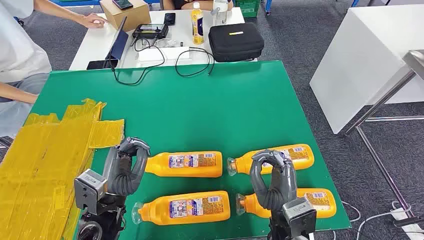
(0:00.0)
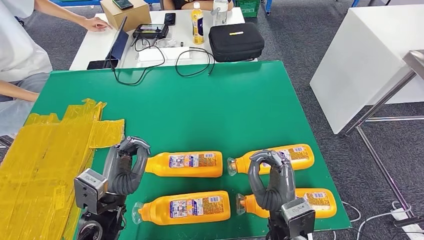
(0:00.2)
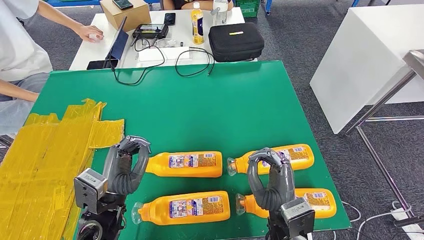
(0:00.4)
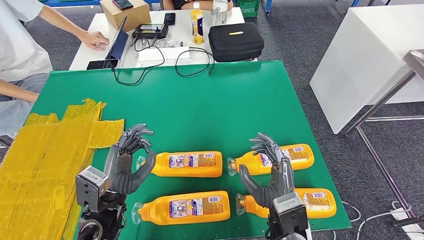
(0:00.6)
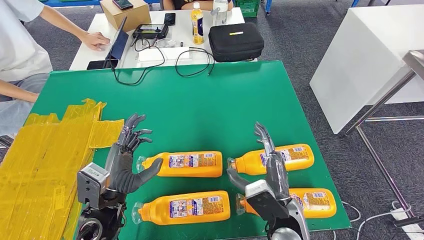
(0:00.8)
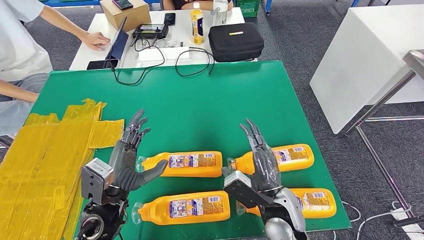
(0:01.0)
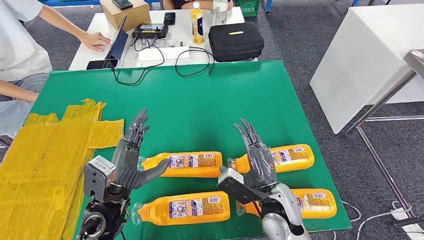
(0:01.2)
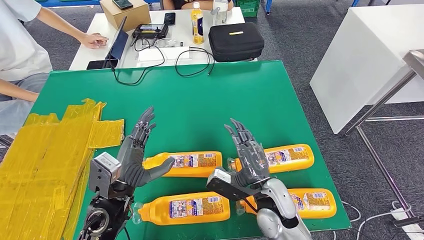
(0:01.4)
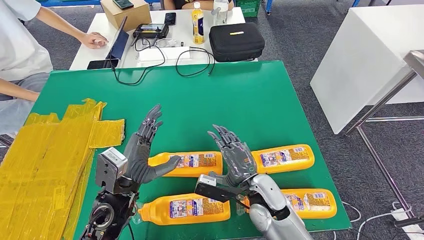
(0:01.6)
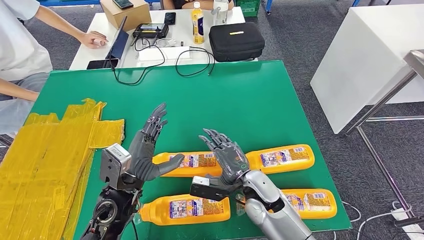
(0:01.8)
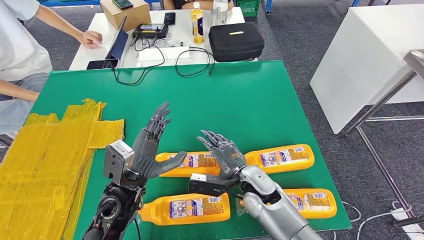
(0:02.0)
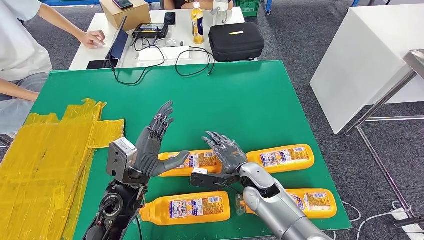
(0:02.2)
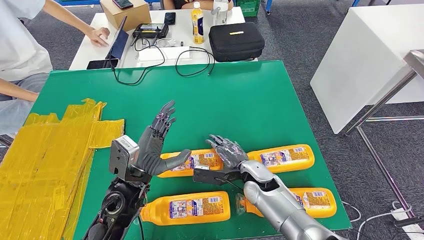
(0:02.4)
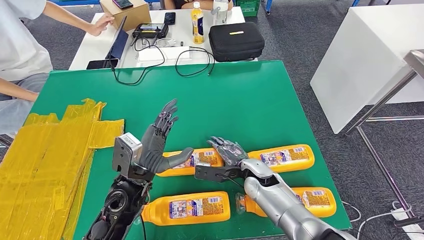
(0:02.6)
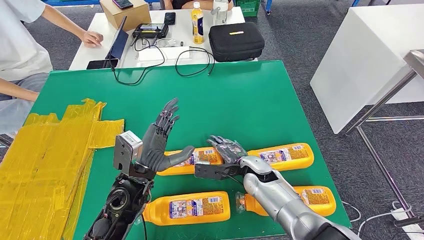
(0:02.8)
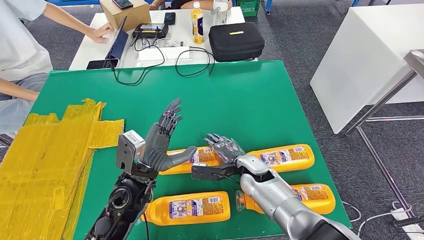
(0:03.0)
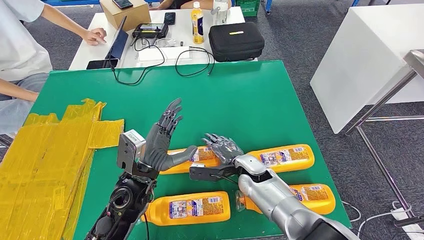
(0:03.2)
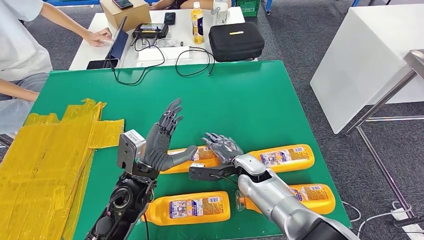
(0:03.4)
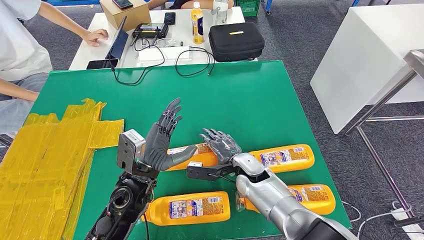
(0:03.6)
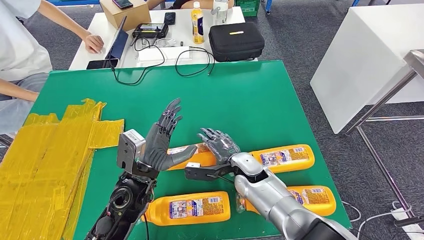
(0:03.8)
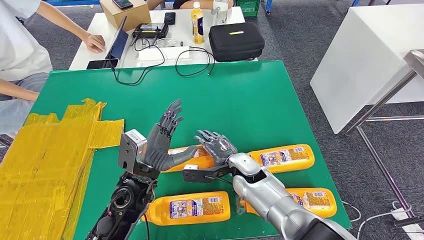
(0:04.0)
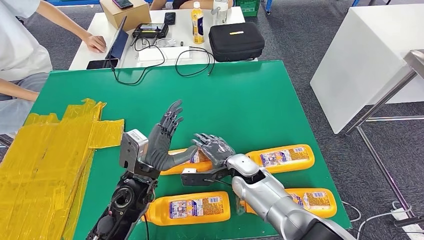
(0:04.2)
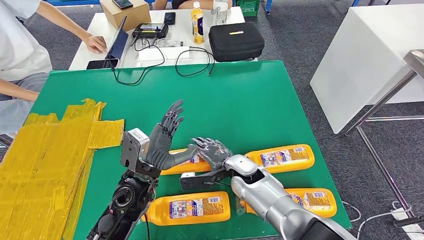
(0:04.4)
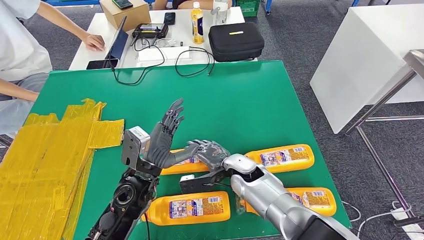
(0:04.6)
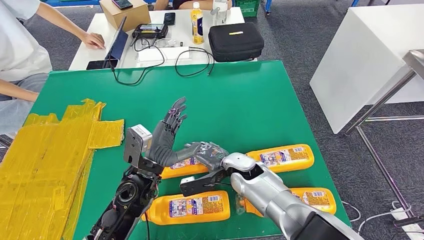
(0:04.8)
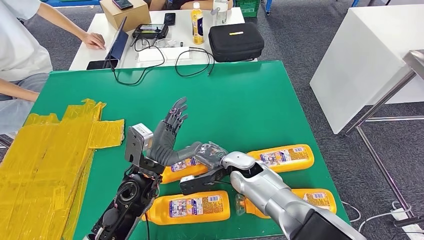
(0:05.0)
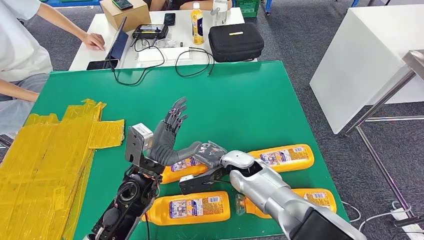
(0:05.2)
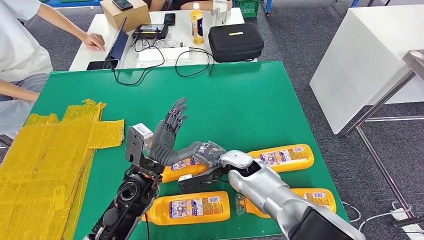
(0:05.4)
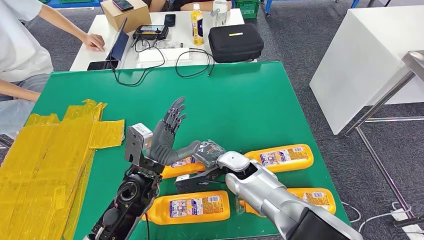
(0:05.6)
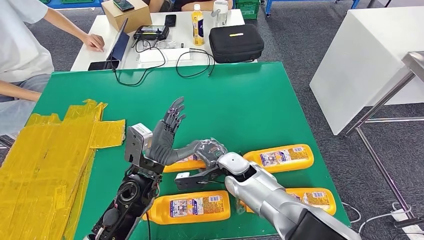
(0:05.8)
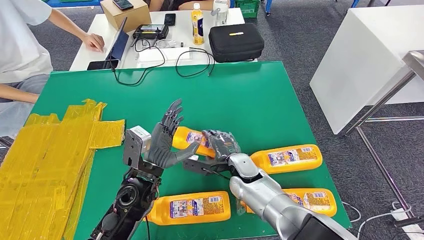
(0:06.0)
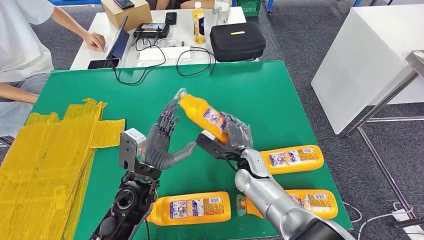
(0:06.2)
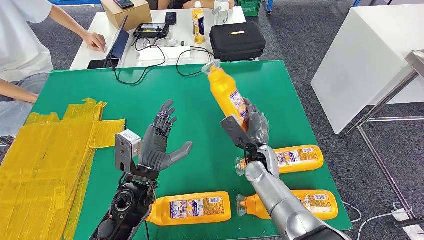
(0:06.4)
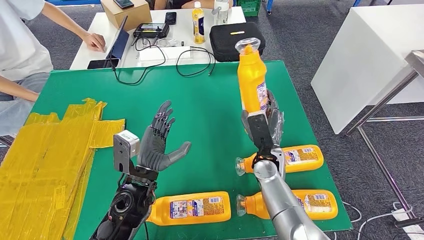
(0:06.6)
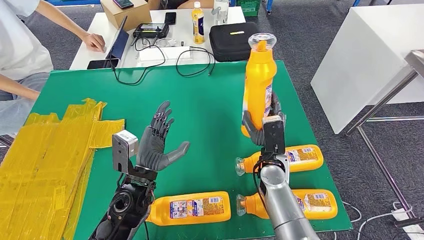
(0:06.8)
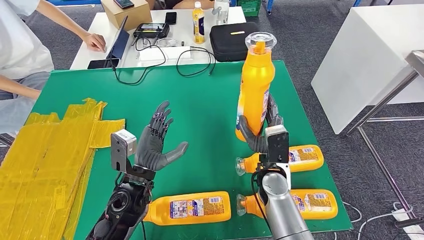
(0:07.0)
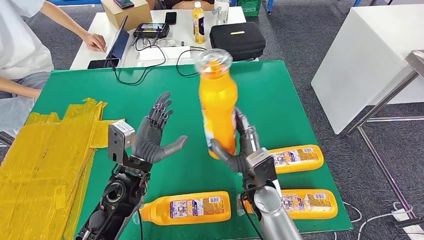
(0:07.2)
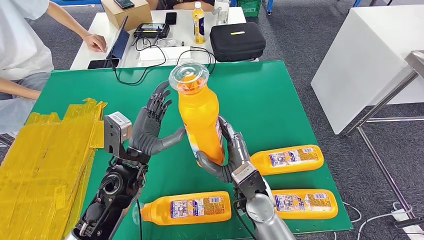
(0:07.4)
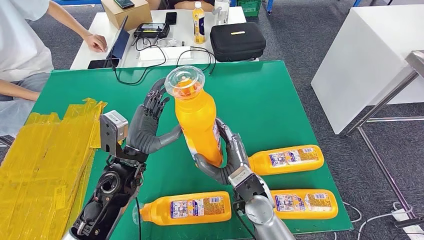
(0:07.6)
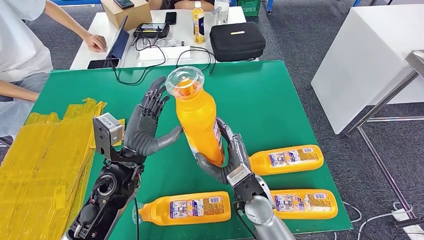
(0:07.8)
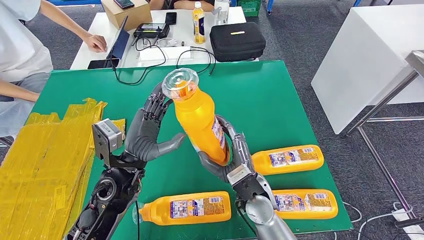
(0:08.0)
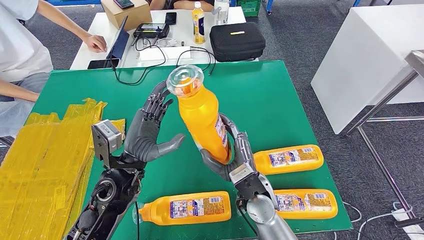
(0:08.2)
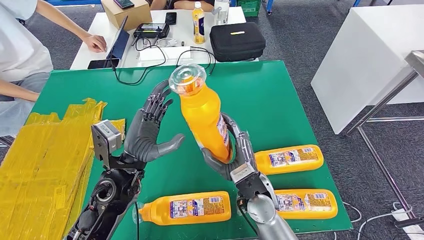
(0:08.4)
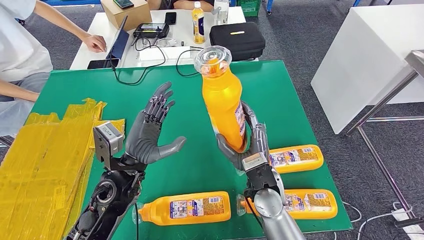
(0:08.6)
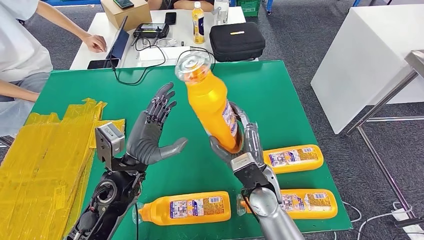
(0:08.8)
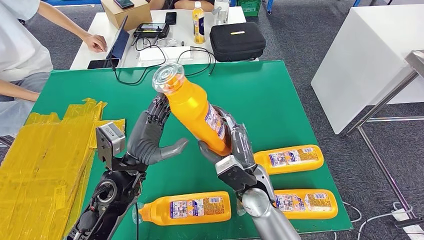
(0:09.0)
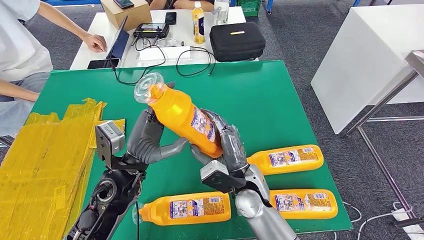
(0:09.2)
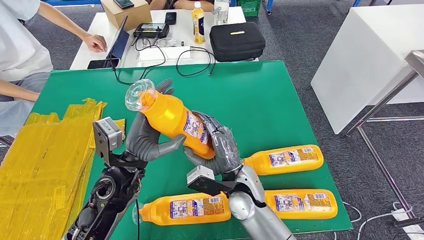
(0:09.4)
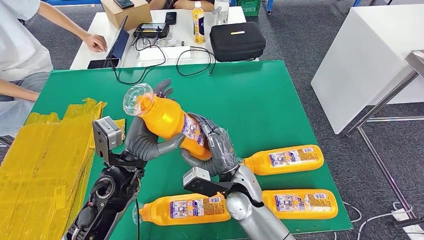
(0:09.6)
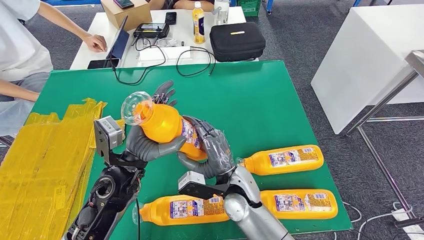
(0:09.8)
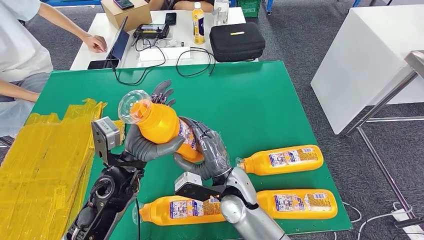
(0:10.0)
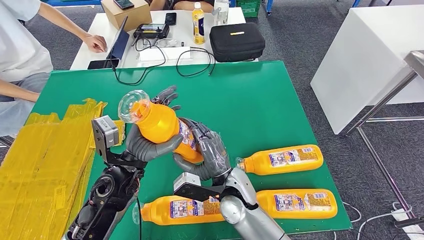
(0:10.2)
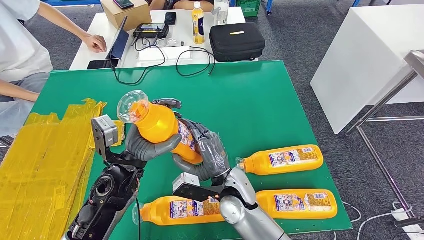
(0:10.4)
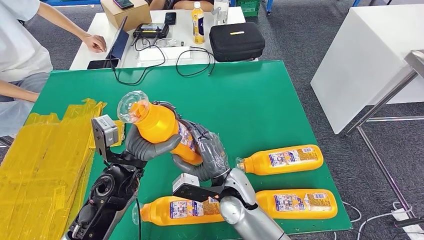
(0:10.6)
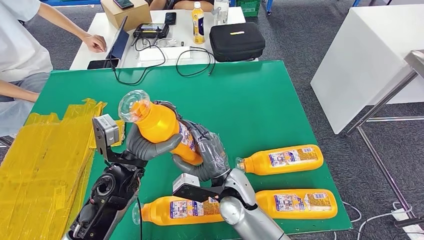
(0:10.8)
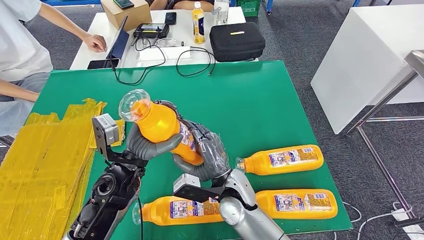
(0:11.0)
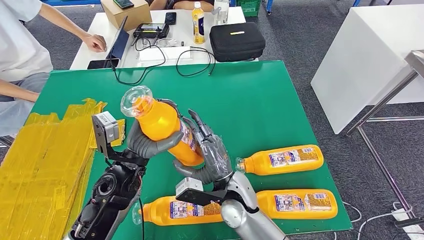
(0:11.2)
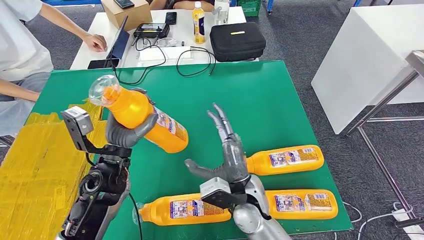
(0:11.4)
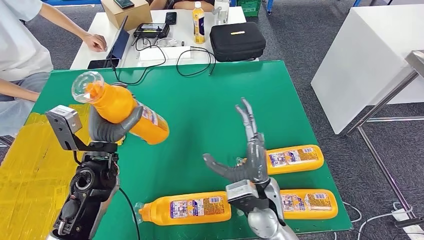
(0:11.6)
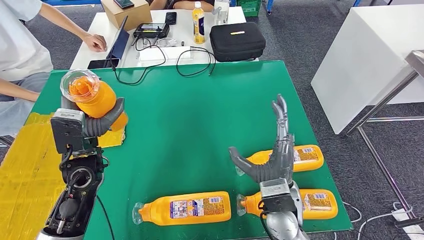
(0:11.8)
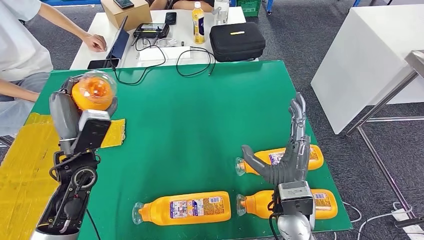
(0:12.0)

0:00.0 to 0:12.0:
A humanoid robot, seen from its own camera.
Step, 0:00.0 to 0:07.8: Take the bottle from the table.
0:01.6 to 0:03.0: The right hand shifts approximately 10 cm forward.
0:03.0 to 0:04.4: The hands move only a little.
0:07.6 to 0:09.0: The hands stay close to where they were, moving slightly.
0:09.0 to 0:10.4: The right hand moves to the left, some 5 cm.

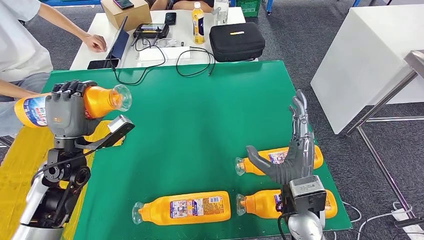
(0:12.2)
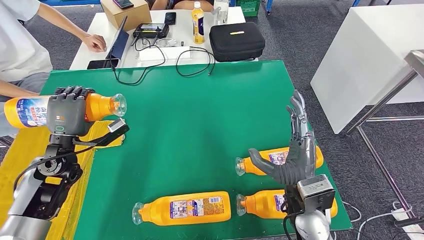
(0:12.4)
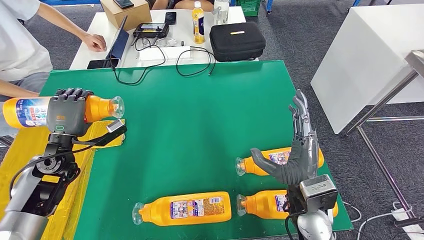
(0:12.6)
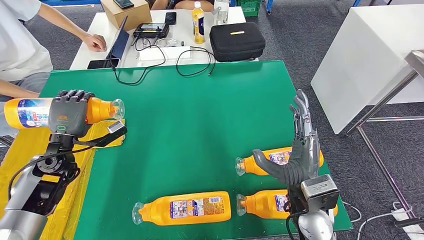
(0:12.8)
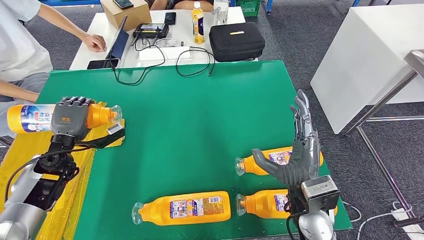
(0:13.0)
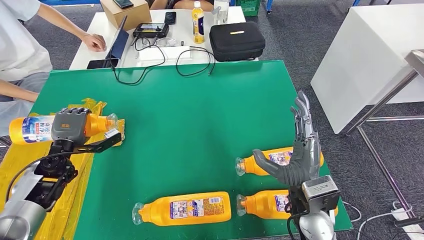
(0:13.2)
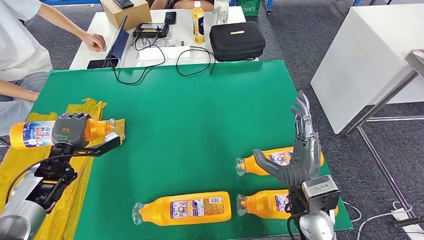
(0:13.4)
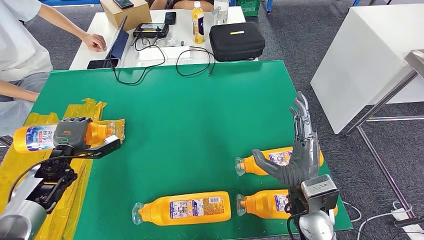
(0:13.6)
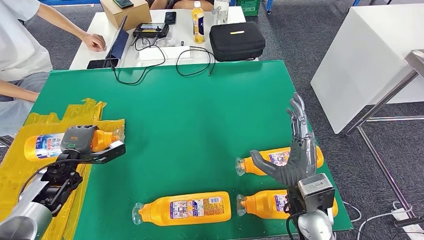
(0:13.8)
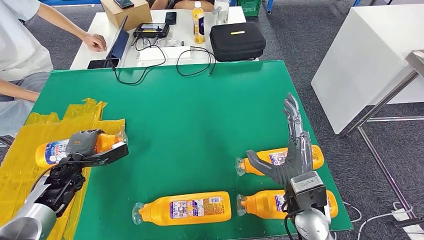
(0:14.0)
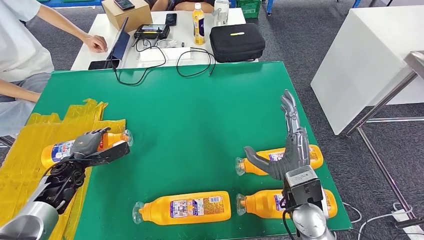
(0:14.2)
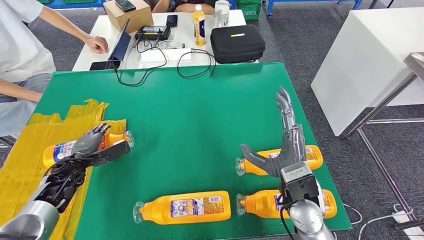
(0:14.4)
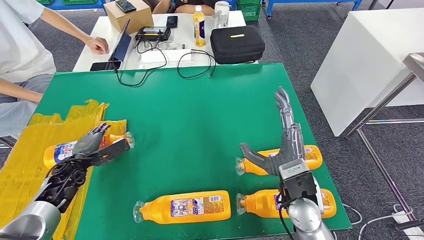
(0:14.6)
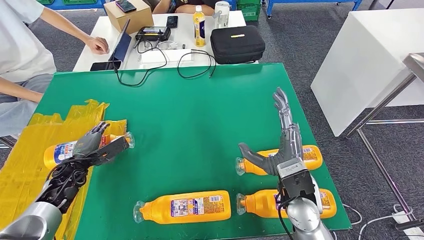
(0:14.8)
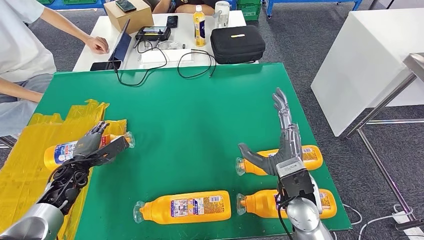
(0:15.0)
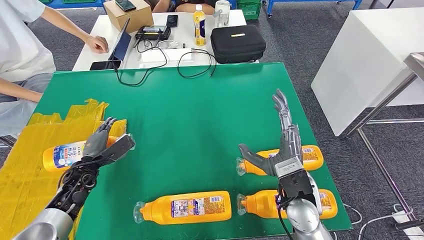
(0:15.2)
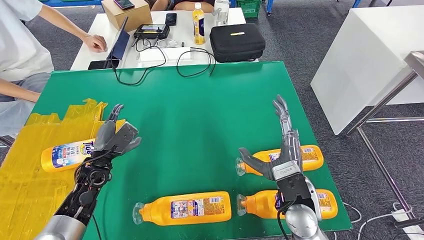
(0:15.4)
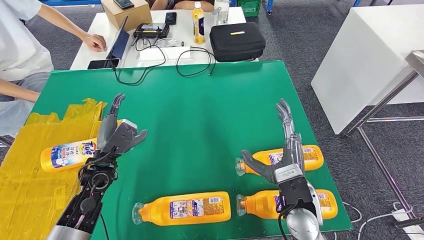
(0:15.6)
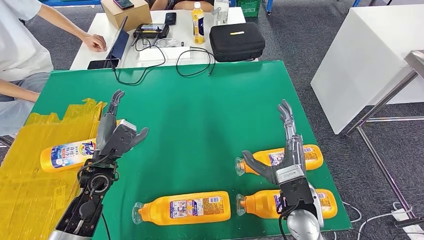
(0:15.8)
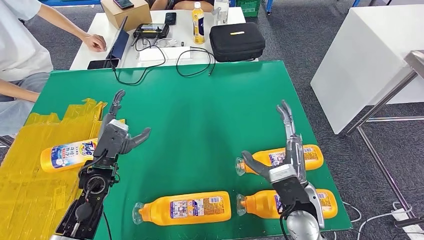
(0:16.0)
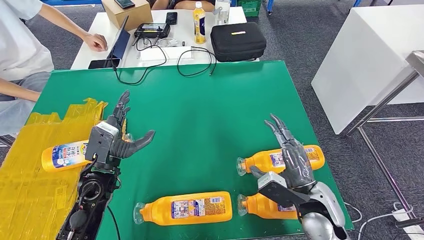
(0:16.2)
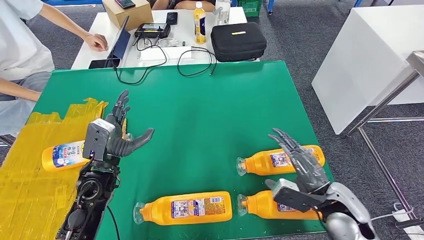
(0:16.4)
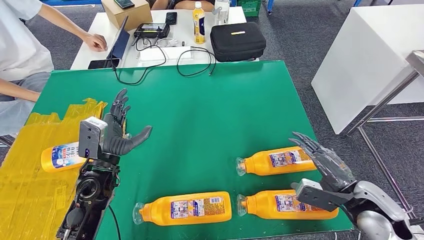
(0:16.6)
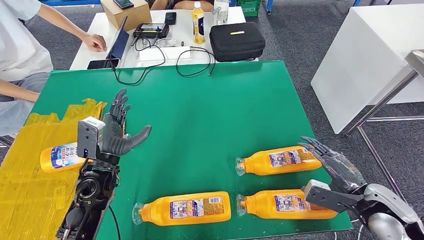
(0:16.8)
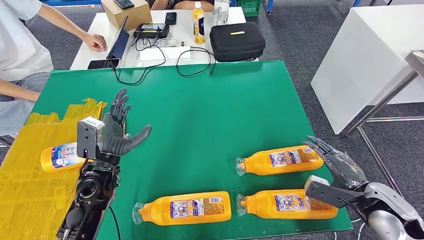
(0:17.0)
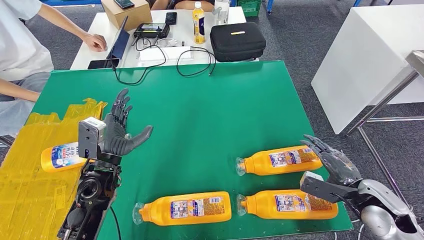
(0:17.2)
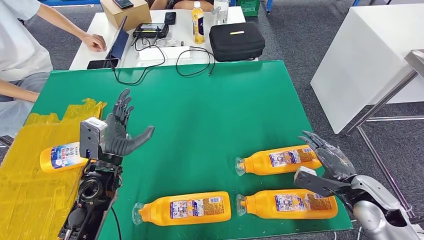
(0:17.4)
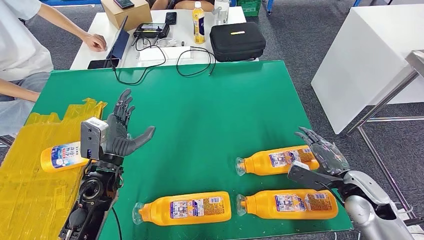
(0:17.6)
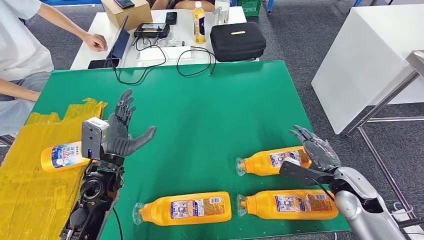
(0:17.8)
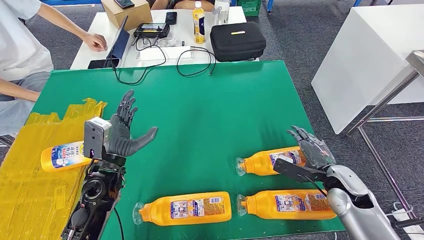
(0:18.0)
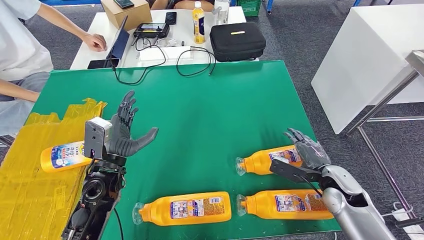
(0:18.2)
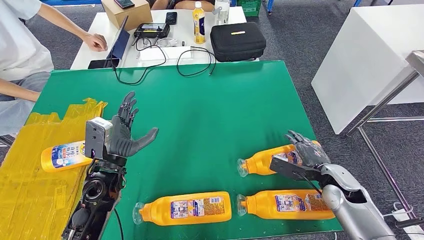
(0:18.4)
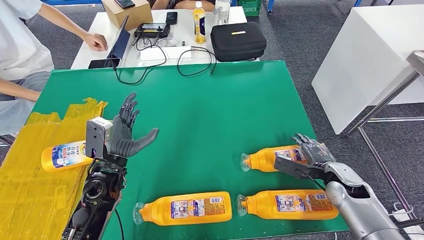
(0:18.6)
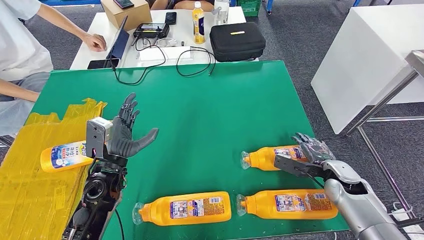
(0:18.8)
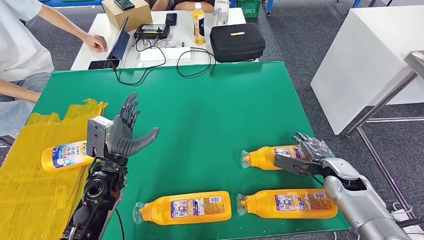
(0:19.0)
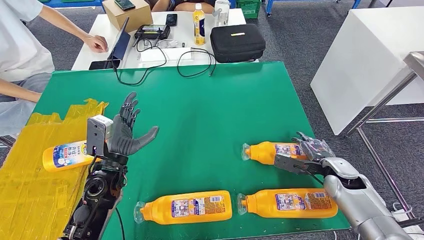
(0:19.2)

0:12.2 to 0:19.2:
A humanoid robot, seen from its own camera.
0:12.2 to 0:13.6: The left hand moves downward and to the left, roughly 15 cm.
0:16.4 to 0:17.8: The right hand is displaced to the right by approximately 5 cm.
0:17.8 to 0:19.2: The right hand moves some 5 cm.
